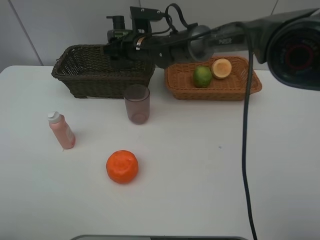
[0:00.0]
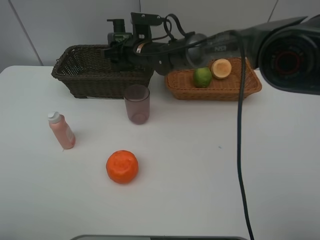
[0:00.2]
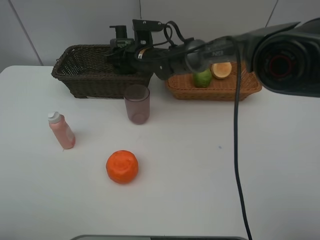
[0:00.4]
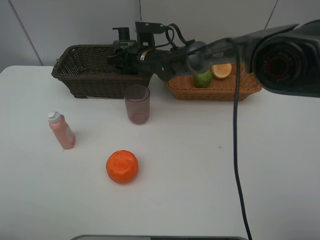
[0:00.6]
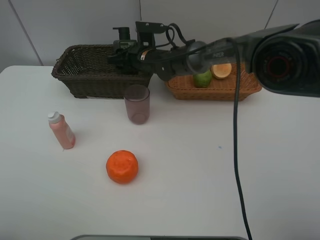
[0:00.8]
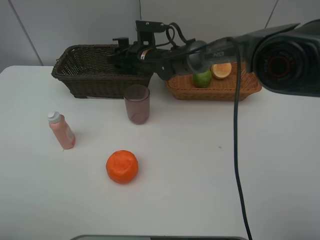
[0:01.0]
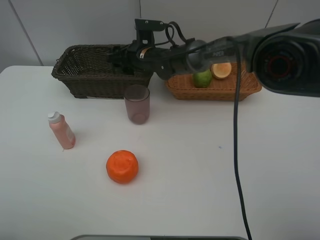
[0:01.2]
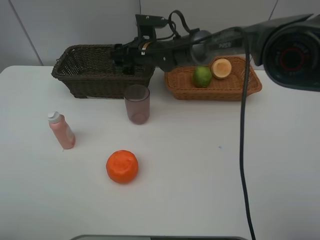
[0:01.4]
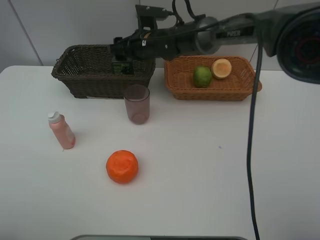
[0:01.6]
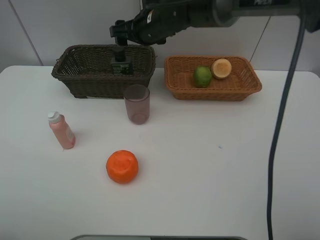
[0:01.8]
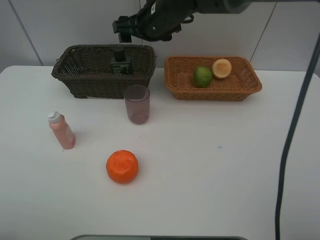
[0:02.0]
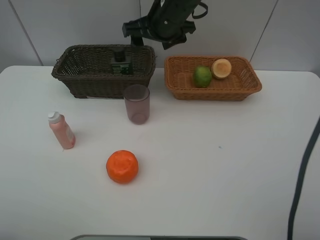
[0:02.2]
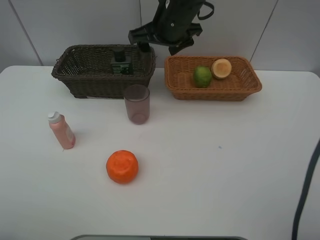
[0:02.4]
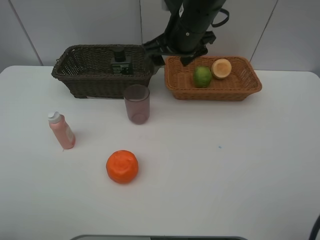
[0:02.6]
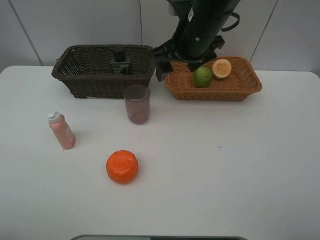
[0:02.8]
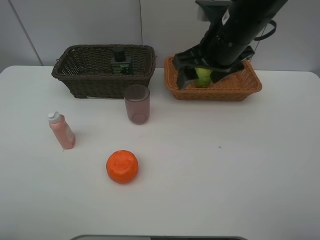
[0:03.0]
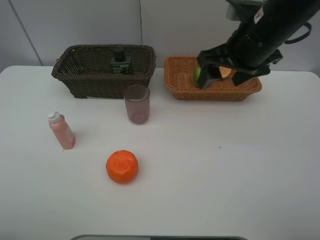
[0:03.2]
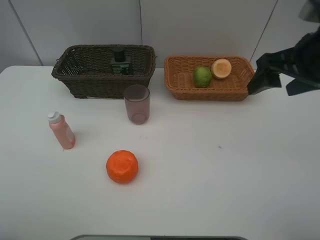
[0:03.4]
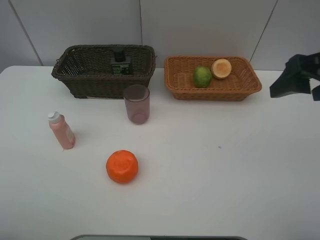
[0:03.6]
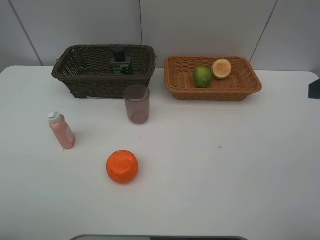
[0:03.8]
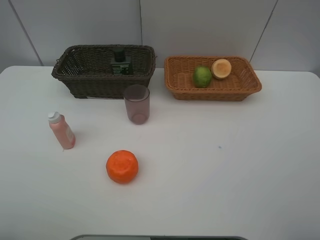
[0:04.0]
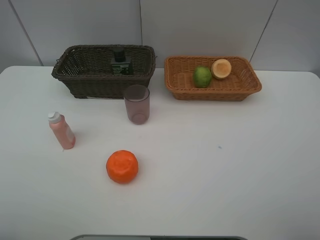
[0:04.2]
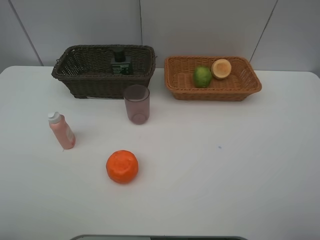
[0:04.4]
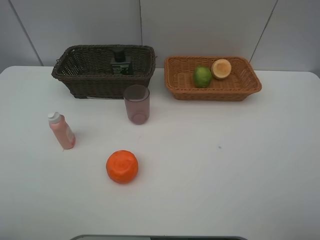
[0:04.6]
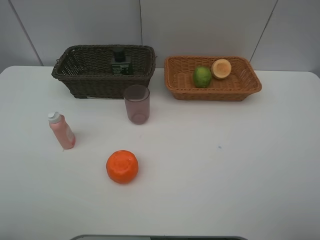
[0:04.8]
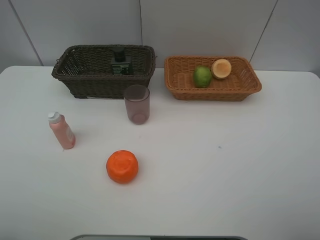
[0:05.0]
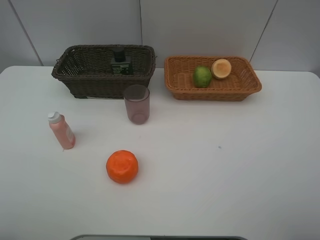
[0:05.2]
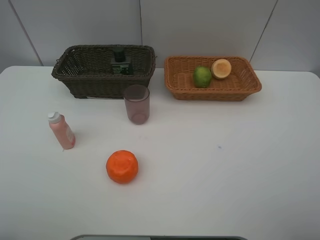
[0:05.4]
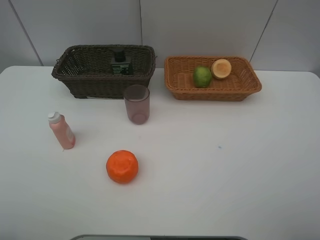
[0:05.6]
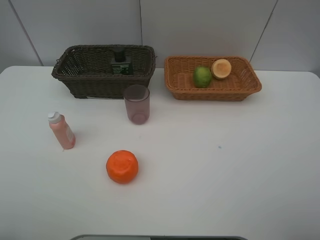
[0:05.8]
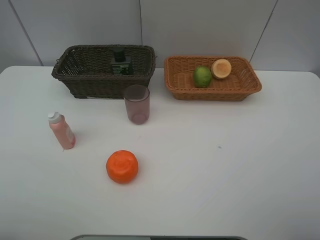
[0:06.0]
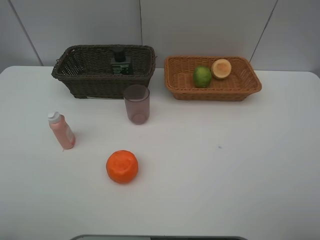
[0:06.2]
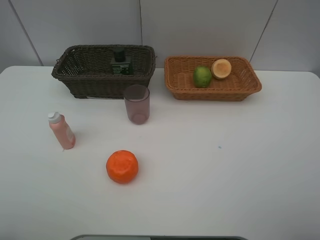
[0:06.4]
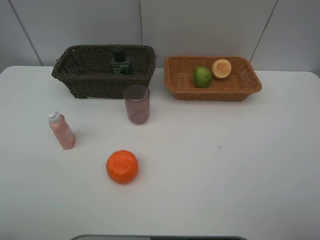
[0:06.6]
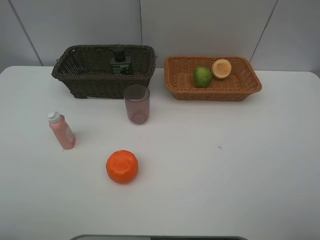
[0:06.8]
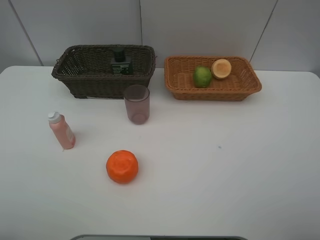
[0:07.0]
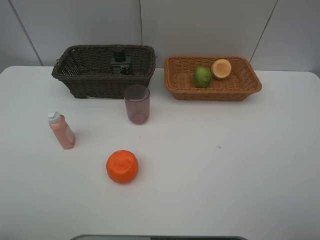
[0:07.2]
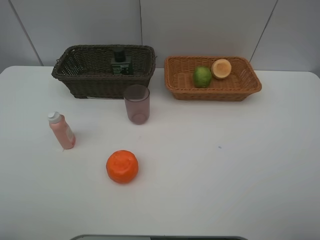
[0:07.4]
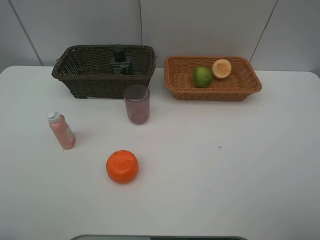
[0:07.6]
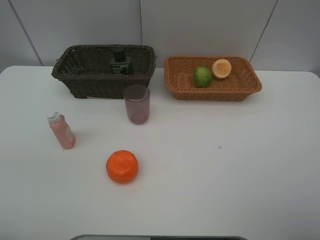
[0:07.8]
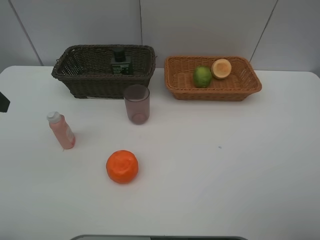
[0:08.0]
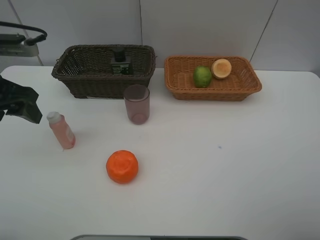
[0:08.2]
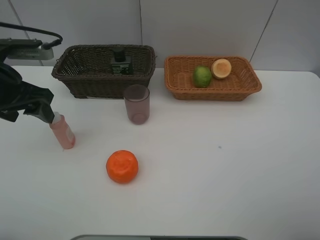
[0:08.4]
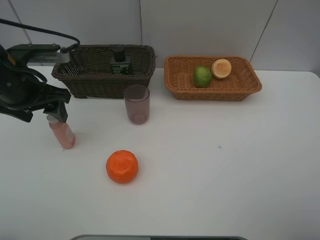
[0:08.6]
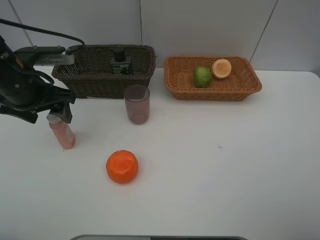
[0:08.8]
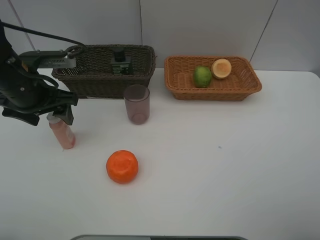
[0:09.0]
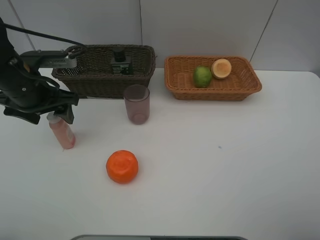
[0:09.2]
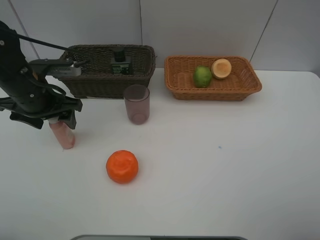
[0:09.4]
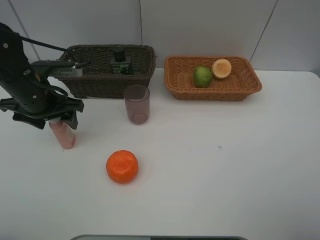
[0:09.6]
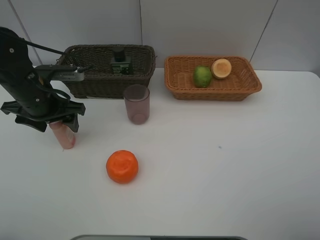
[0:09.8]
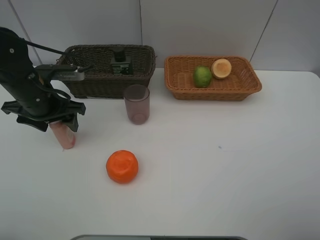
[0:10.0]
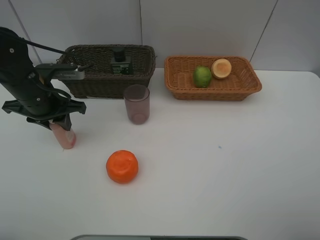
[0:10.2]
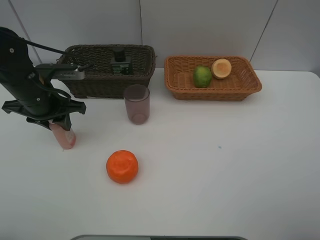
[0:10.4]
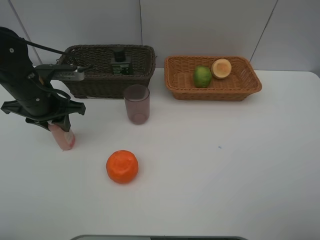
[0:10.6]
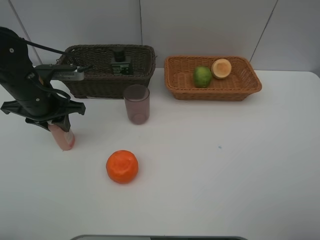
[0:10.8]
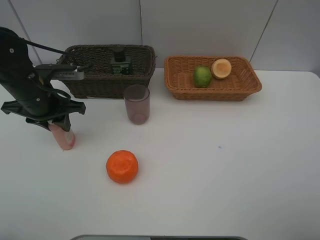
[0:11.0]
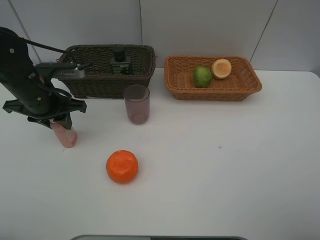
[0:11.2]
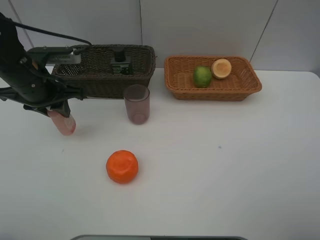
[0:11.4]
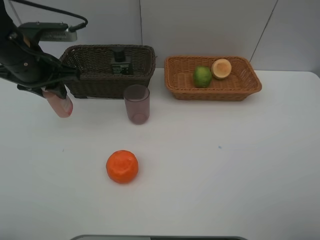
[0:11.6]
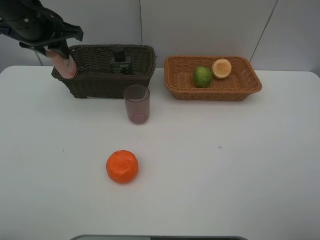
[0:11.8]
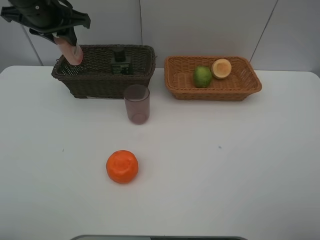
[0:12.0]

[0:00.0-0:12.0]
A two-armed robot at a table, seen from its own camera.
Task of the whole recording: place multiple objects separately in different baskets.
0:00.0 to 0:01.6: The grippers stay close to where they were, moving slightly.
0:01.6 to 0:03.0: The right gripper shifts about 20 cm backward, to the right and upward.
0:03.0 to 0:04.4: The right gripper is displaced backward and to the right by approximately 35 cm.
0:07.6 to 0:09.0: The left gripper goes about 25 cm forward and downward.
0:09.0 to 0:10.4: The left gripper closes its fingers.
0:10.4 to 0:12.0: The left gripper moves upward and forward, approximately 15 cm.

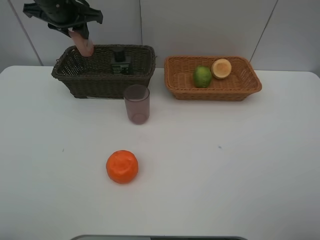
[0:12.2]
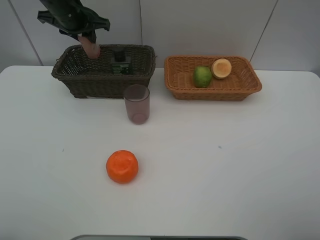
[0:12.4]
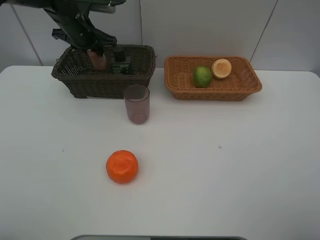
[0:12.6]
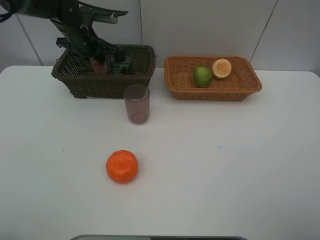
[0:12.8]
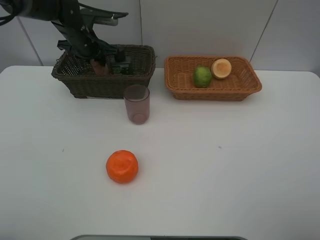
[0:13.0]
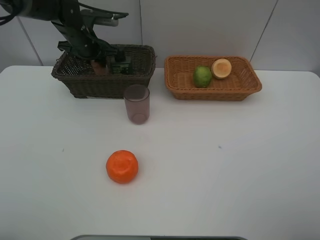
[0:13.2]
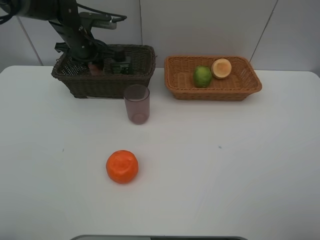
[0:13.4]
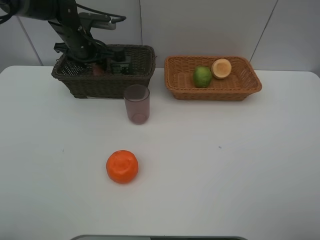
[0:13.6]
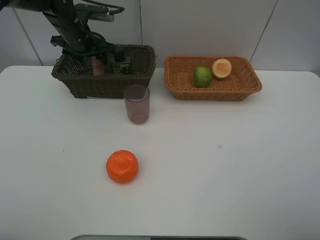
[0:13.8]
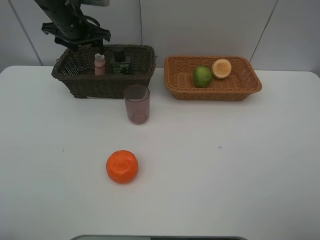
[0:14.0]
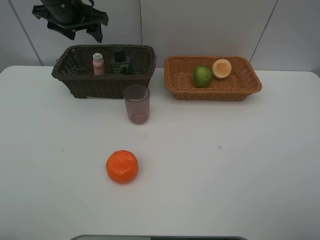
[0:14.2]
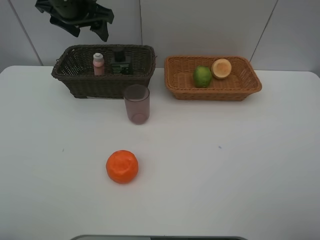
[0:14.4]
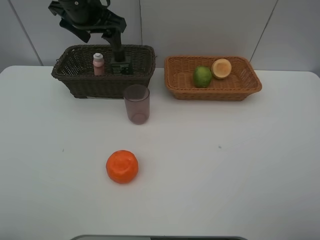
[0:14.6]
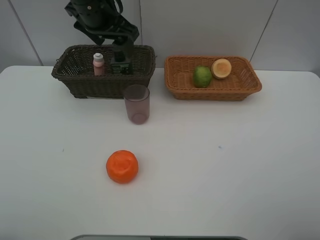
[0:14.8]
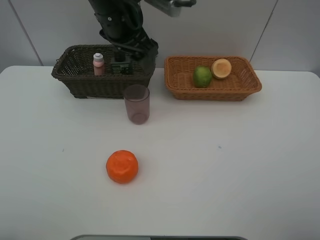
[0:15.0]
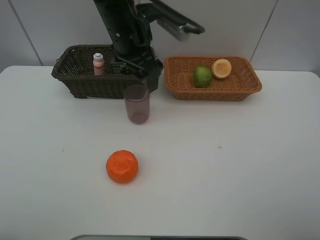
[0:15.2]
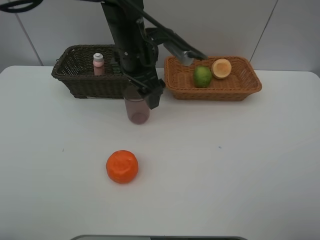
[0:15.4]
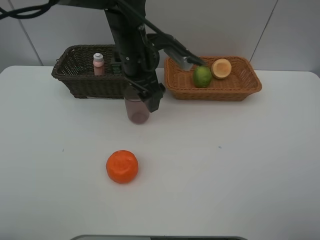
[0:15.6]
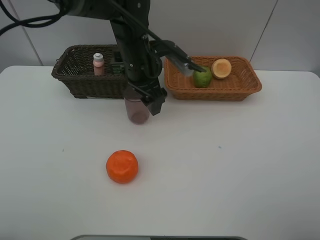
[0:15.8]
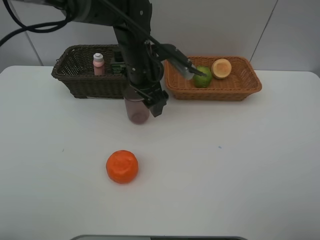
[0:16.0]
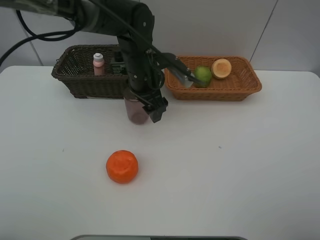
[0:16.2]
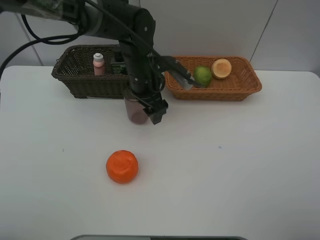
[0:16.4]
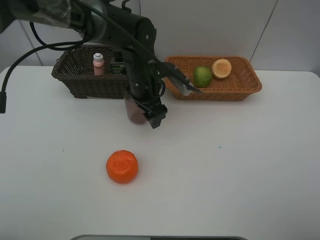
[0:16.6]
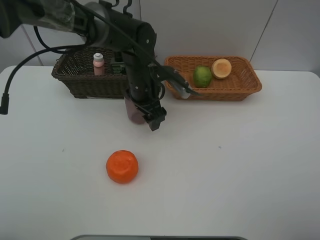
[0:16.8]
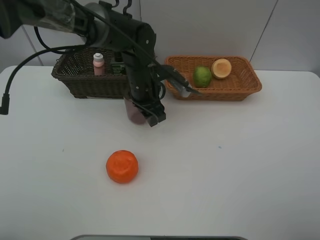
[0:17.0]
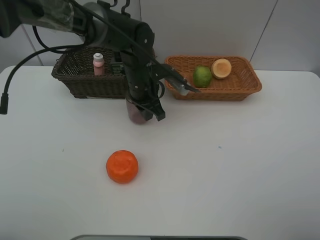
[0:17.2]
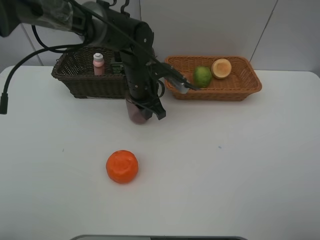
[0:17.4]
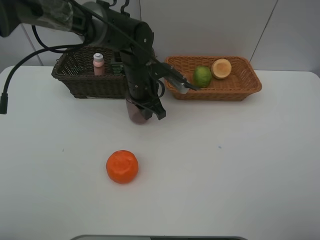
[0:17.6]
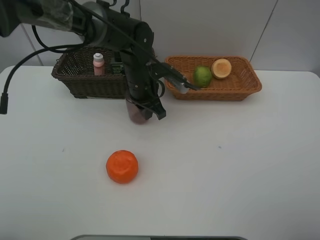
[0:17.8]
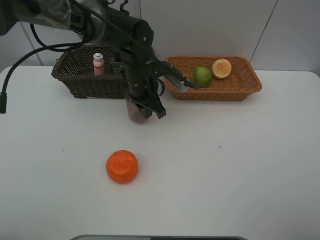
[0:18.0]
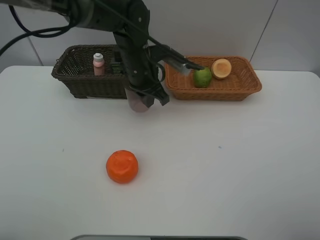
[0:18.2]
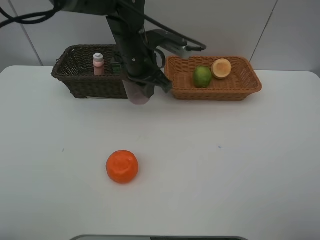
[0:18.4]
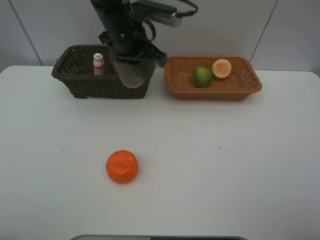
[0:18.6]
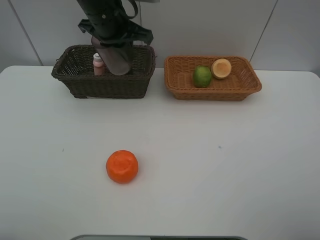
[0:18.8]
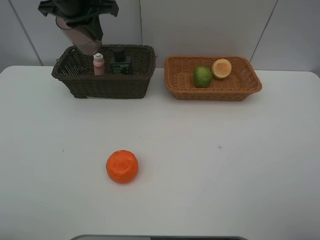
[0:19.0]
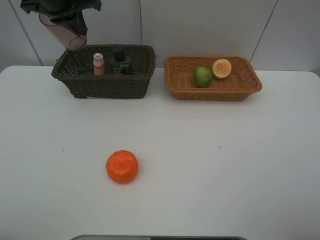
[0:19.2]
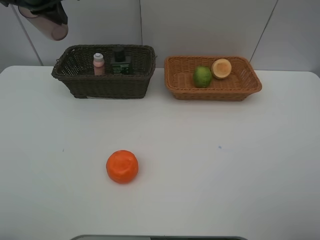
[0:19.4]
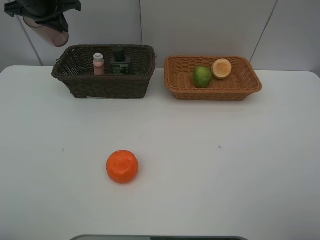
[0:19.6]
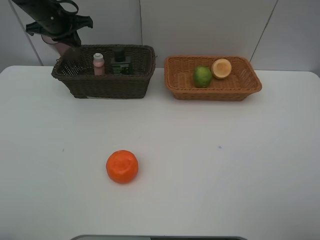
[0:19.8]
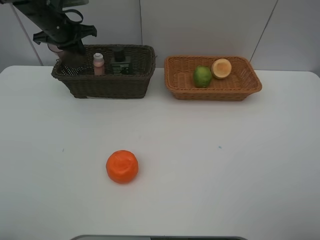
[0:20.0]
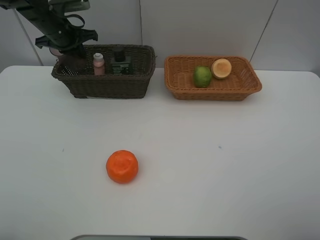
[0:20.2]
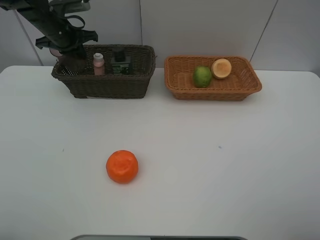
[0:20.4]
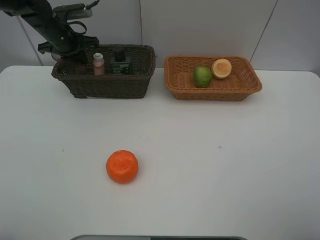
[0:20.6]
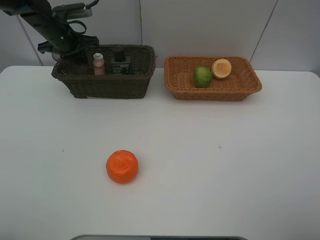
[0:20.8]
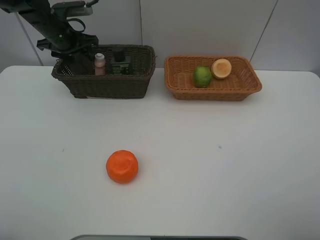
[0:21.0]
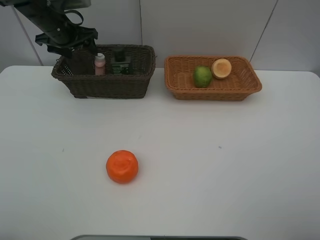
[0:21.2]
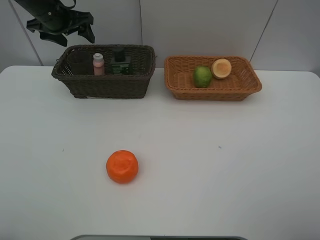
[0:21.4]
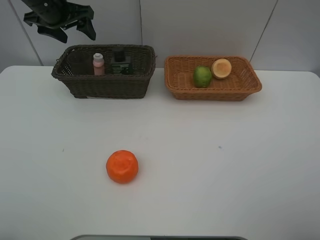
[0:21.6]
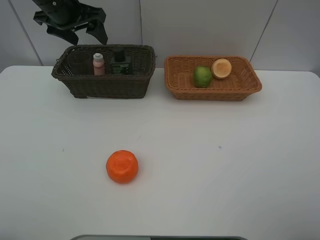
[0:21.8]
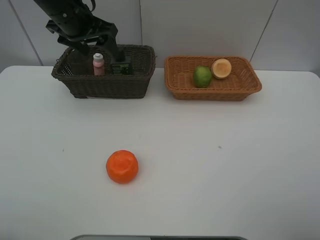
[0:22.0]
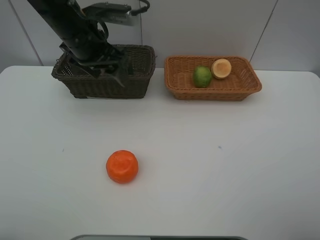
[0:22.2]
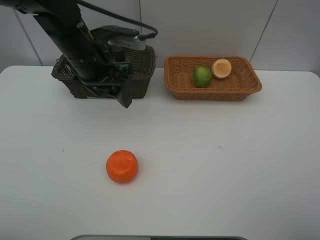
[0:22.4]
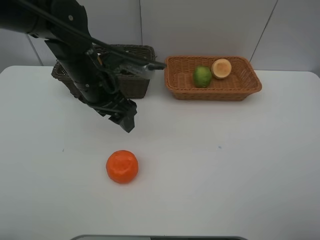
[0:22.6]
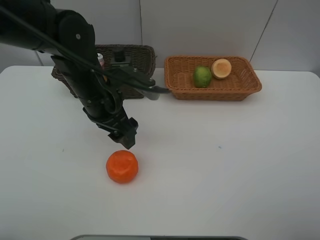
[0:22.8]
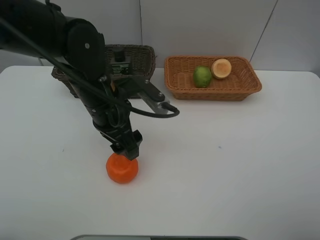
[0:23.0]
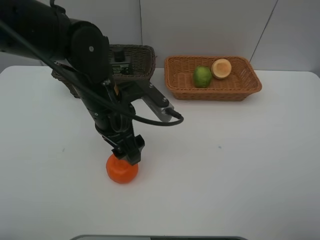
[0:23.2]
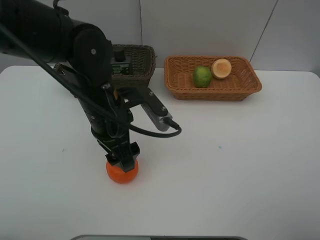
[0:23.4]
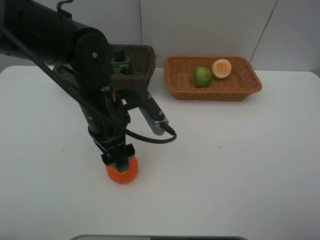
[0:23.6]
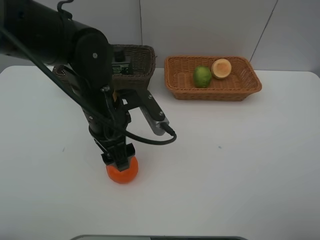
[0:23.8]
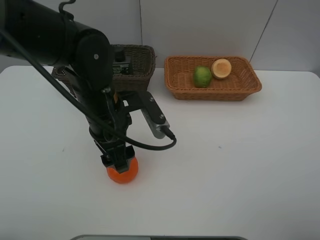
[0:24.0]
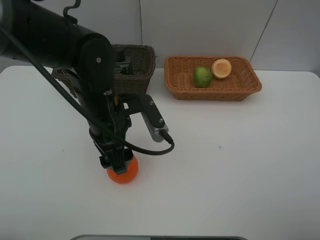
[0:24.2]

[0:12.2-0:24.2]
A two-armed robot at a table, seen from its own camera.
Task of the whole recording: place multiple objects separately in different baskets.
0:12.2 to 0:13.8: The left gripper travels downward by about 5 cm, and opens.
0:13.8 to 0:15.2: The left gripper is displaced to the right and backward by approximately 20 cm.
0:15.2 to 0:16.6: The left gripper shifts some 10 cm downward.
0:16.6 to 0:18.2: The left gripper closes up.
0:18.2 to 0:19.8: The left gripper travels to the left and forward by some 25 cm.
0:19.8 to 0:21.2: The left gripper opens up.
0:21.2 to 0:22.6: The left gripper travels backward and to the right by roughly 25 cm.
0:22.6 to 0:24.2: The left gripper moves some 5 cm.
